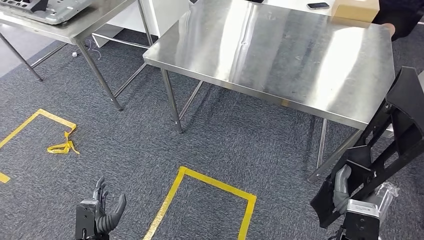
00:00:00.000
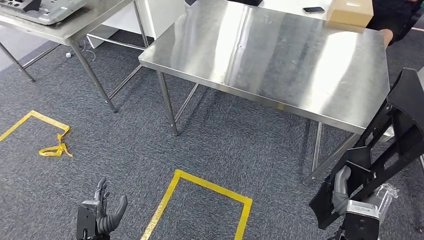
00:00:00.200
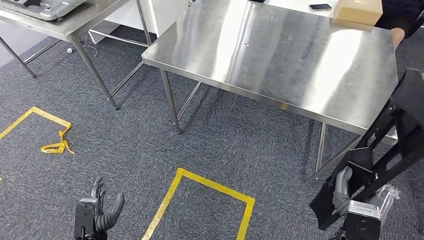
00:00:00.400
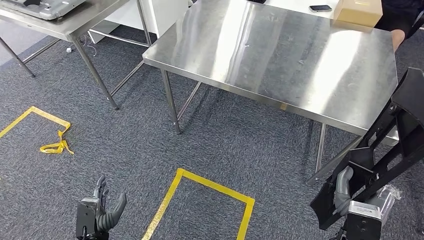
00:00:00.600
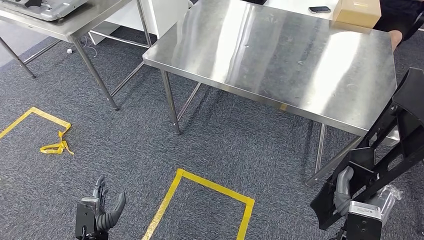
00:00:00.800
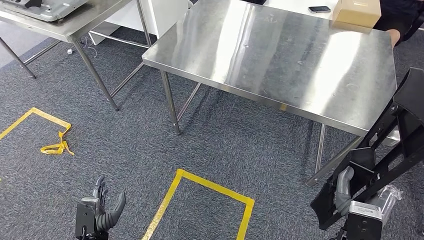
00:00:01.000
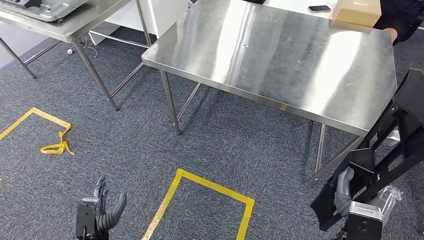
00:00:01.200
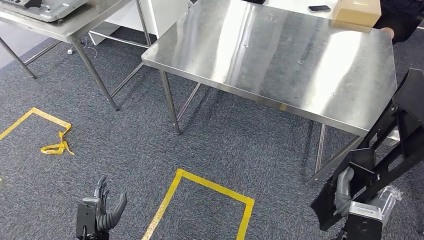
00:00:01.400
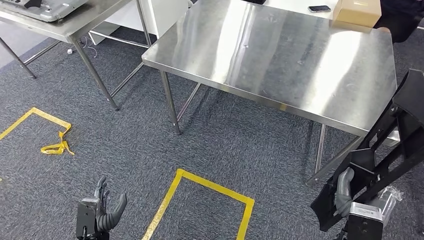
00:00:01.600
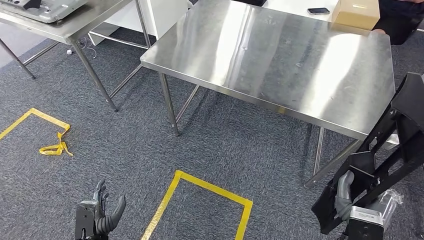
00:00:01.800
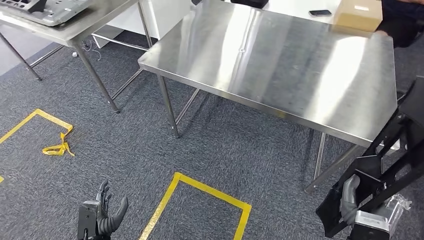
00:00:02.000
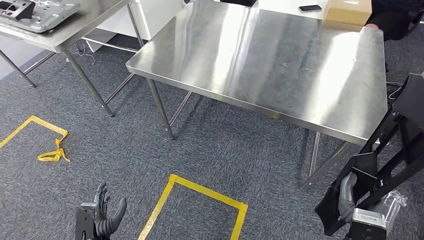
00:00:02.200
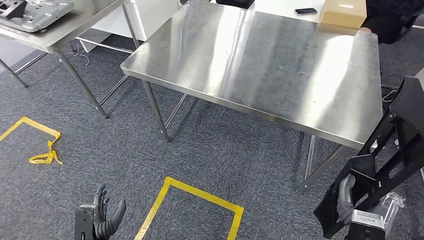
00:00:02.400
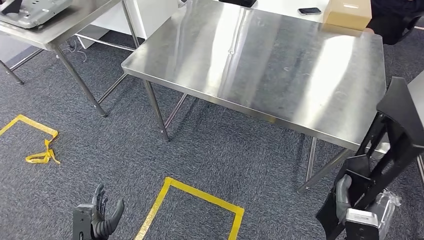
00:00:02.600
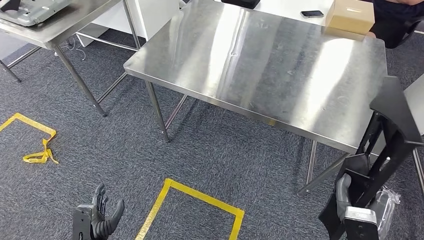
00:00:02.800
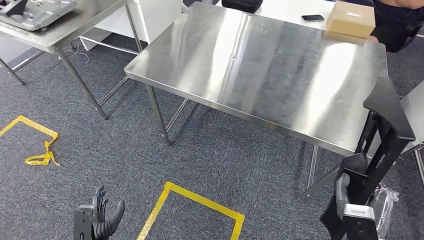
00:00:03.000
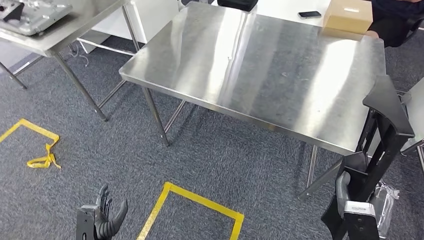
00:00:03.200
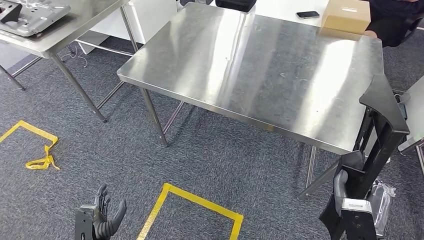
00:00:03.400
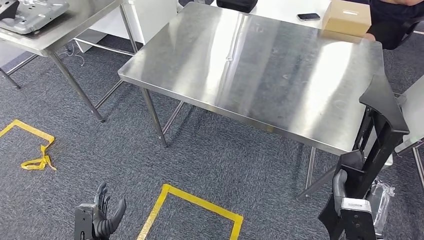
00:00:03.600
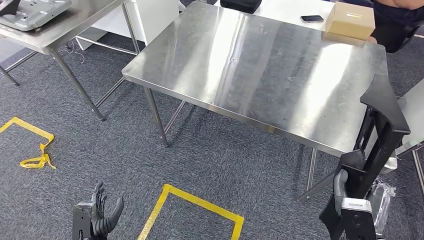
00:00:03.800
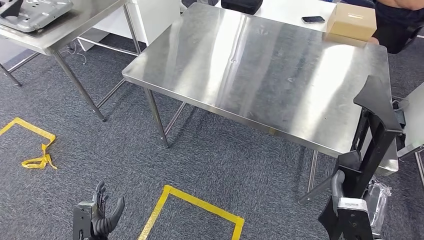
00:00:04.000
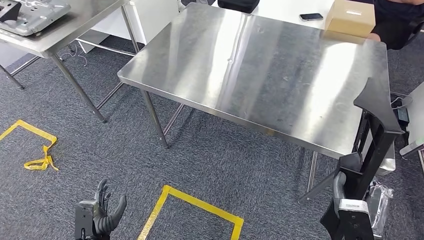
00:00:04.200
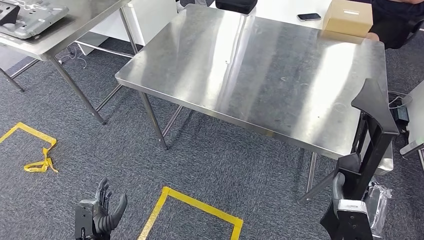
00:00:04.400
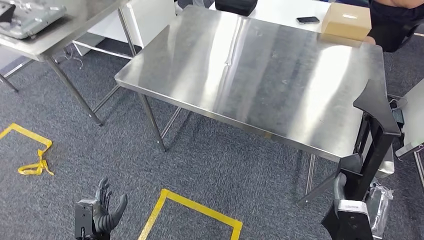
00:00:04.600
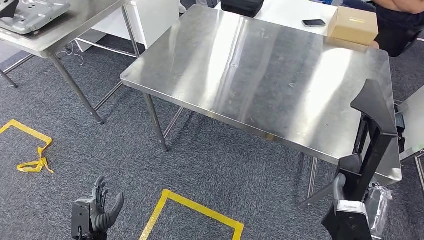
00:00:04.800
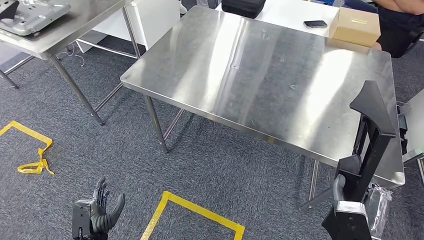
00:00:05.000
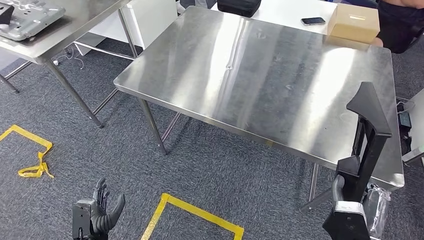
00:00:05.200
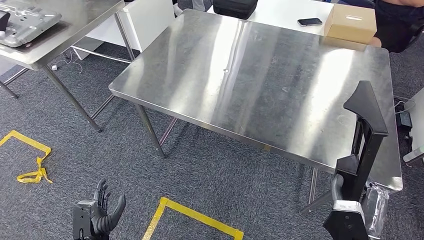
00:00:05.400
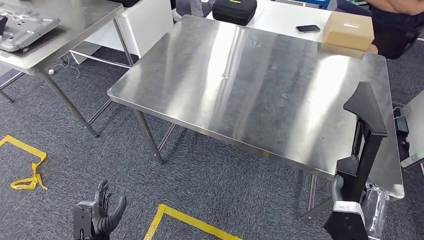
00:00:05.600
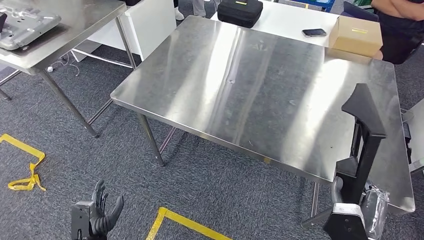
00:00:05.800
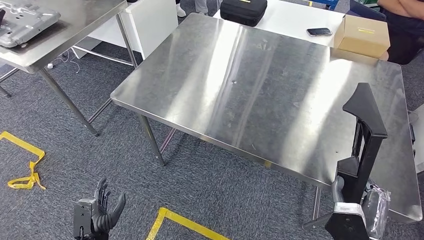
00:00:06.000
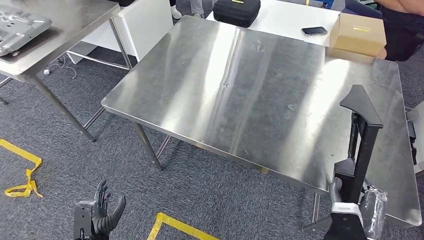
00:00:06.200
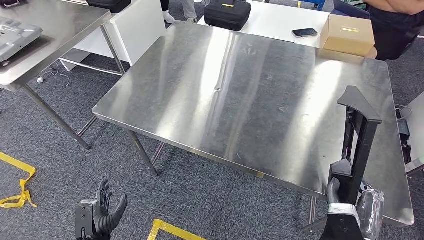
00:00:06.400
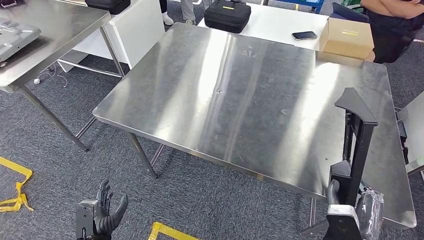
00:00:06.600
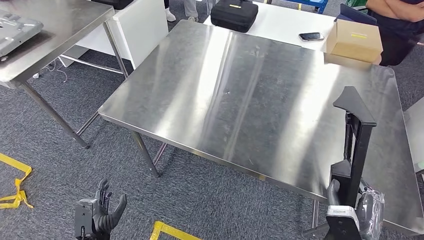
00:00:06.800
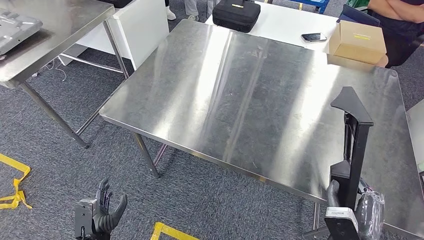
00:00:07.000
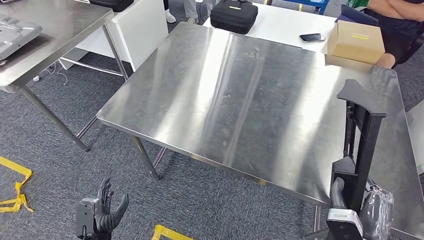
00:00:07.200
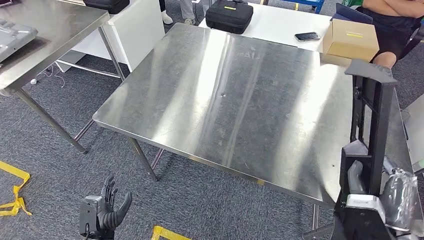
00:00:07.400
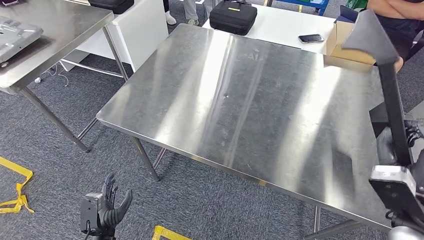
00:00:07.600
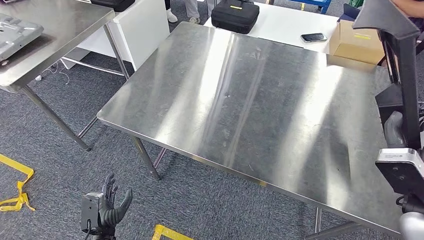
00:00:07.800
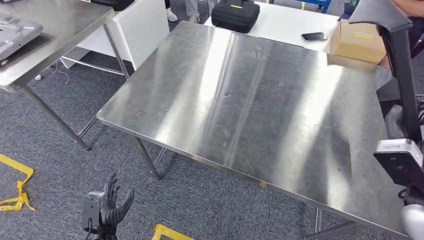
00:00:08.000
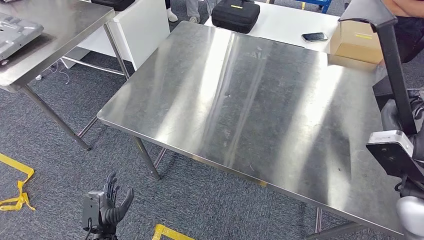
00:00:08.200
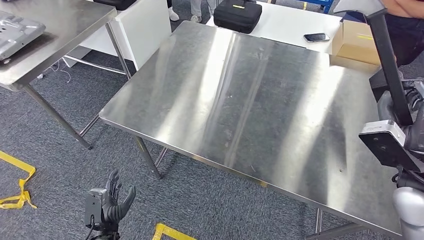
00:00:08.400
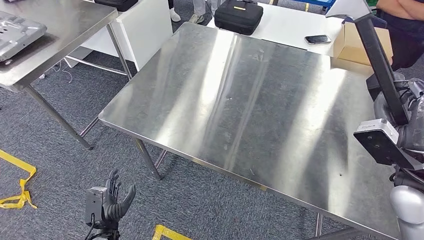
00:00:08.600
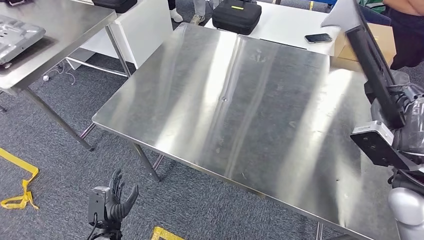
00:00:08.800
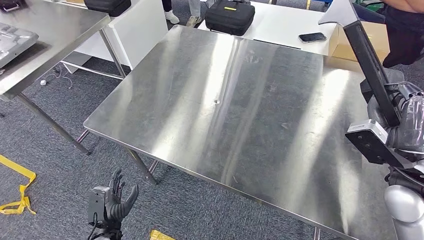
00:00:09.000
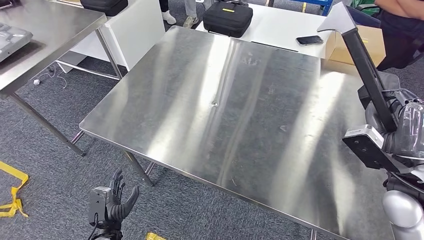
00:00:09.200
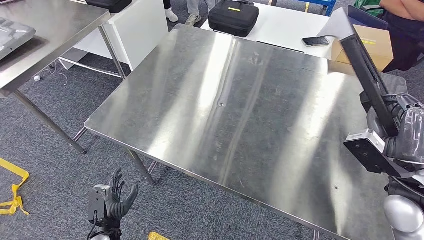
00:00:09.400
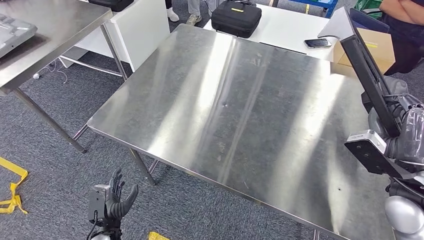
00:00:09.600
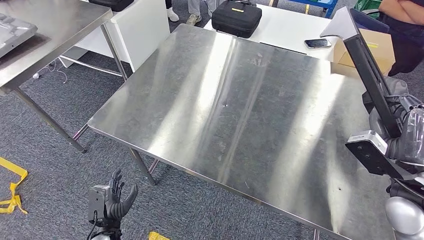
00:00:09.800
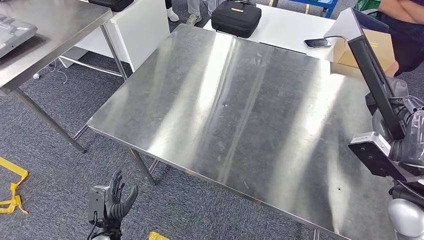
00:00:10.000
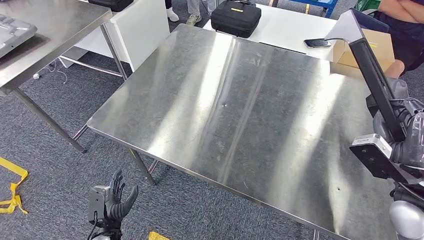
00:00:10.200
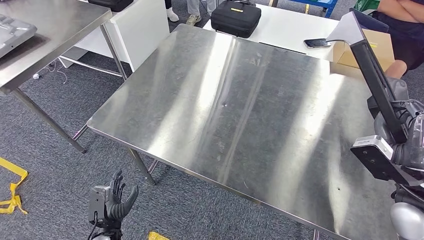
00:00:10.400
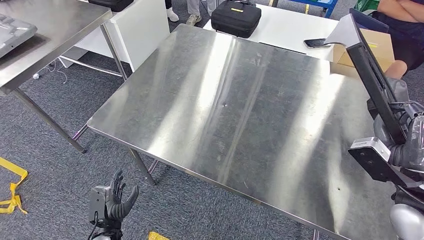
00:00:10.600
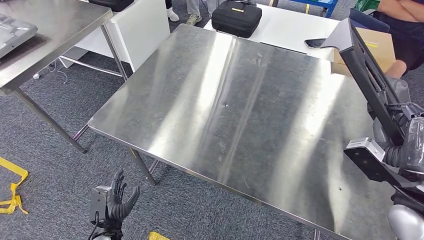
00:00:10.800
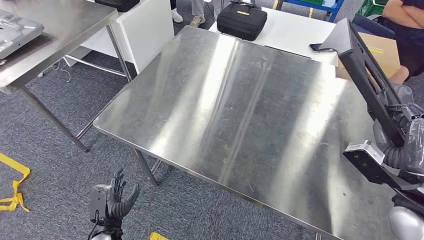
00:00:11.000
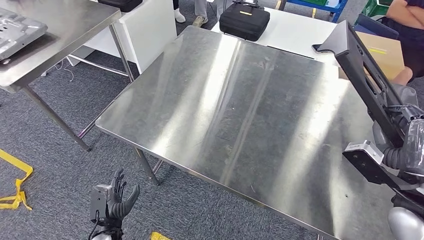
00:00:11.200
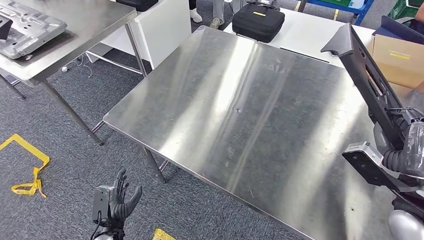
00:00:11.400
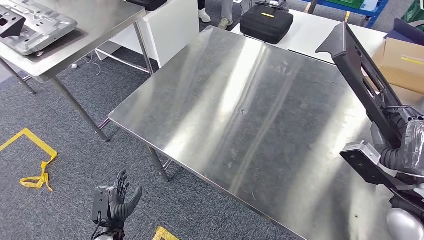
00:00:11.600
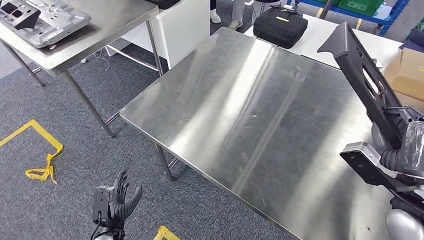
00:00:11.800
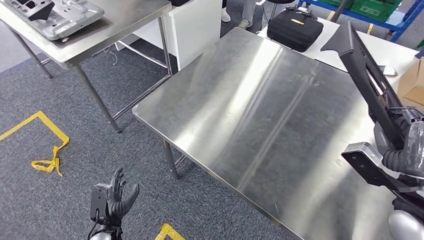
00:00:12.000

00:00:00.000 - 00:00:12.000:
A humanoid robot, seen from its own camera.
00:00:00.000 - 00:00:01.600: The two hands keep their place.

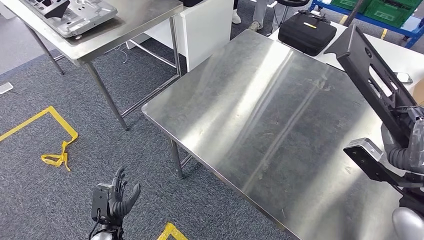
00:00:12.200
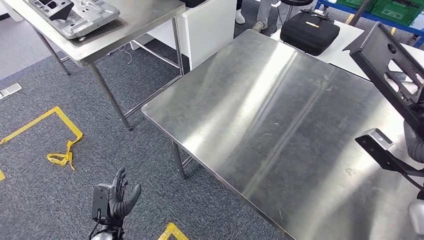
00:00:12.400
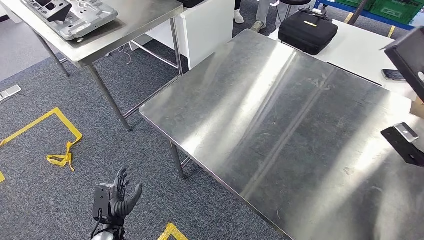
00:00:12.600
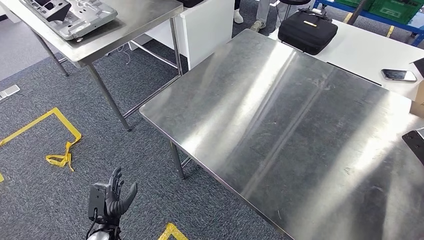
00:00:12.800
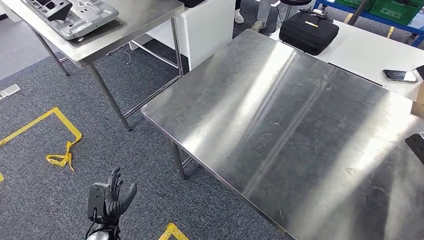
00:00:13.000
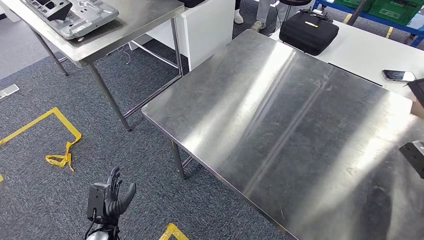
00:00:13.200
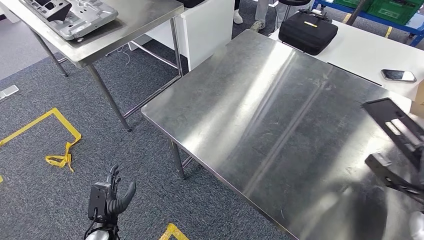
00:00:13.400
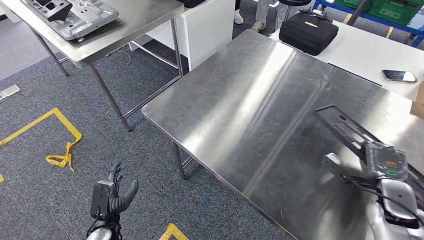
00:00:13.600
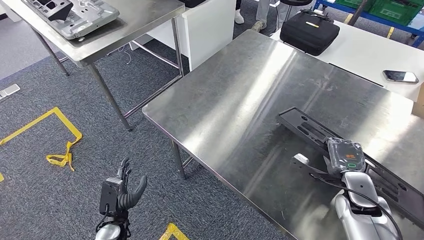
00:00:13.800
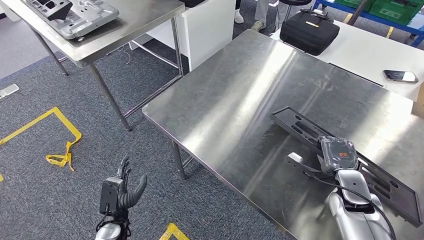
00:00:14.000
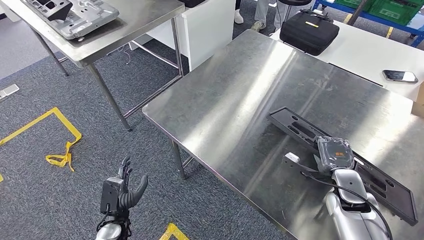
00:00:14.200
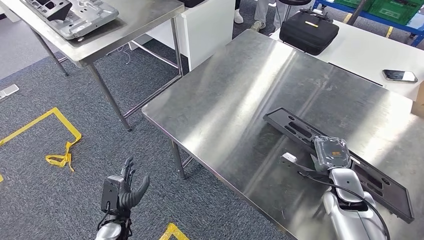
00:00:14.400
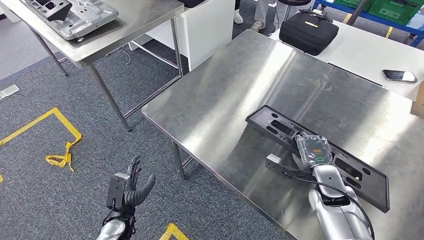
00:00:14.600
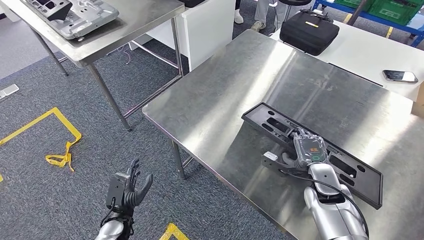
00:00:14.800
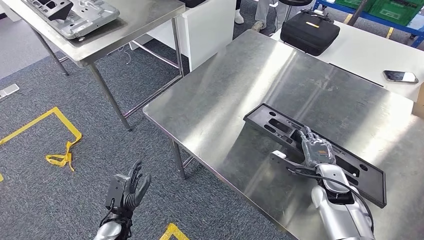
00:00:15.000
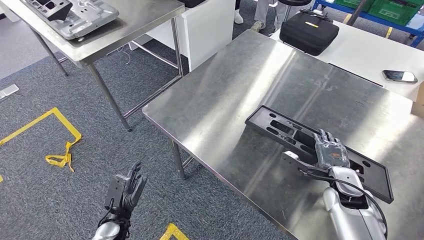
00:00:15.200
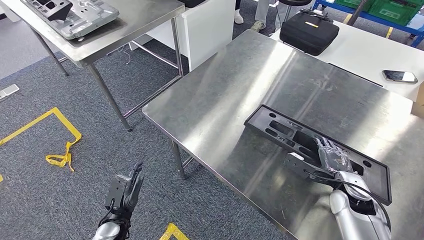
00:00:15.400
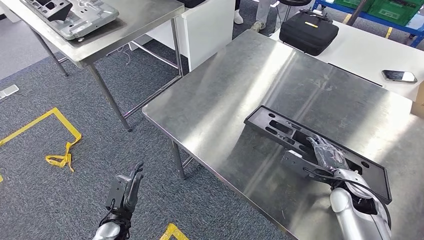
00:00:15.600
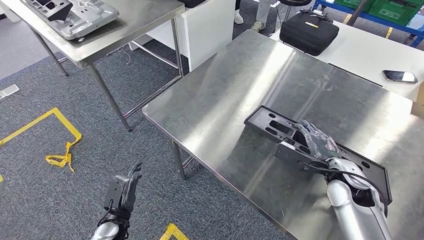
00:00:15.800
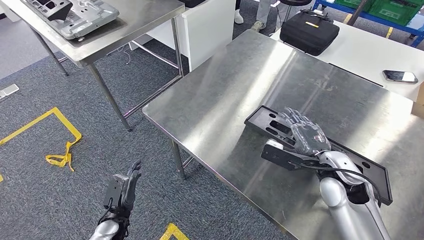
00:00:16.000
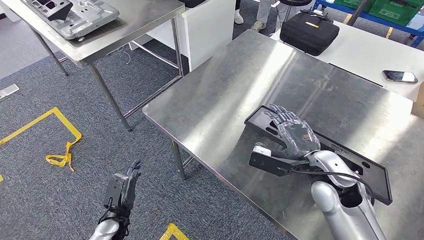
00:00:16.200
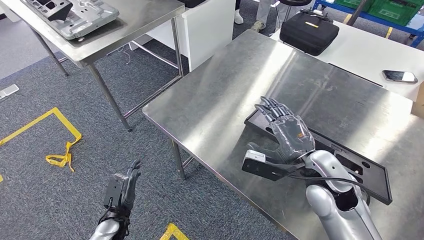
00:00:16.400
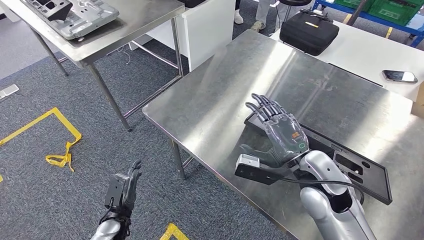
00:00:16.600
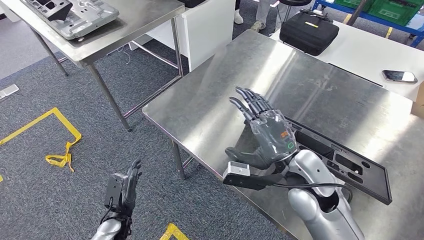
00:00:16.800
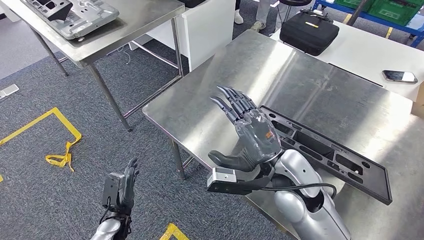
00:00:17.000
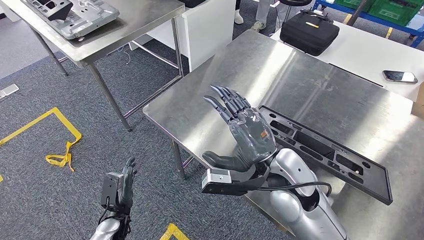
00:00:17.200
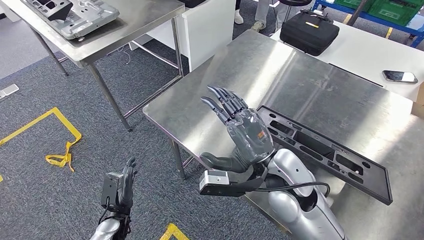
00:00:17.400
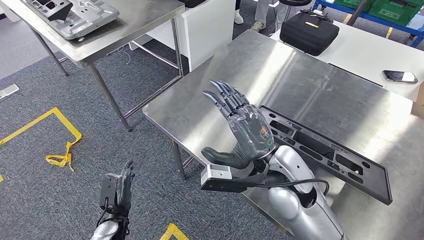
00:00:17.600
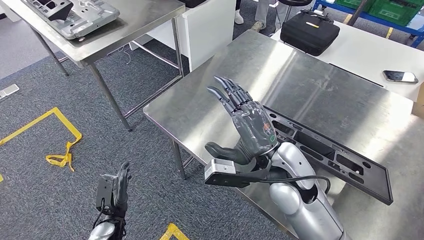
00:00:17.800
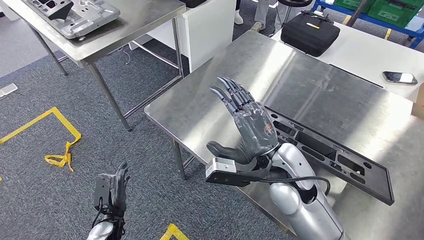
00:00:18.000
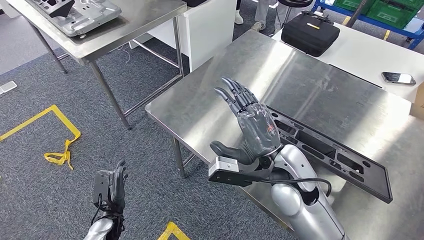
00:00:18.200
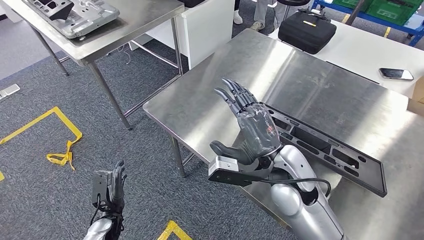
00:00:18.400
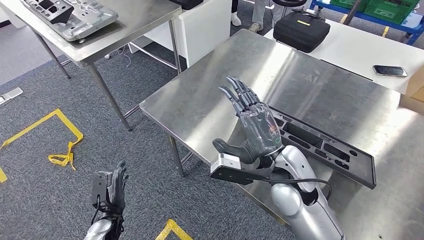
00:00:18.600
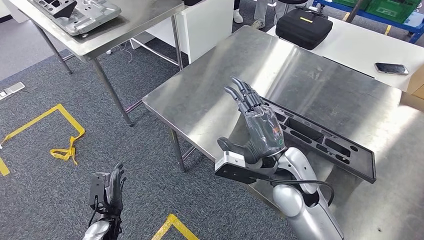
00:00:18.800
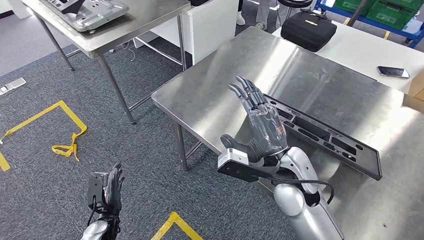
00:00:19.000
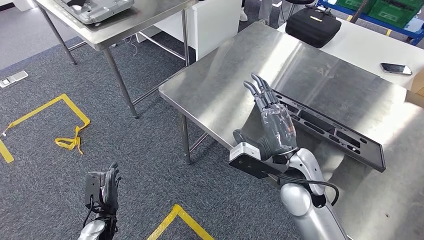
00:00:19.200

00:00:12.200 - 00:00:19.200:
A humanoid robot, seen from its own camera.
Step, 00:00:12.200 - 00:00:17.400: Insert the large material into the corresponding slot on the workbench.
00:00:13.600 - 00:00:15.000: The right hand is displaced to the left by some 10 cm.
00:00:15.000 - 00:00:16.400: The right hand is displaced upward and to the left by some 15 cm.
00:00:16.400 - 00:00:17.800: The right hand travels to the left by about 10 cm.
